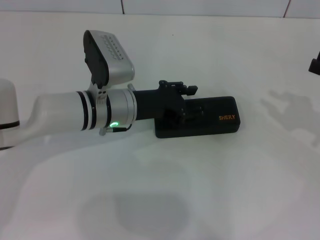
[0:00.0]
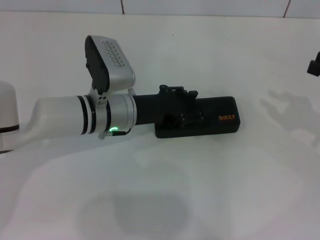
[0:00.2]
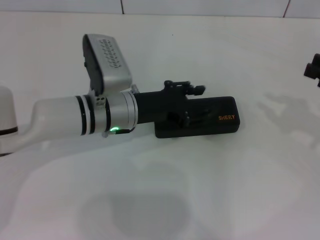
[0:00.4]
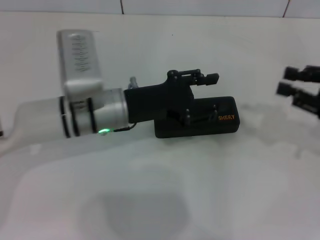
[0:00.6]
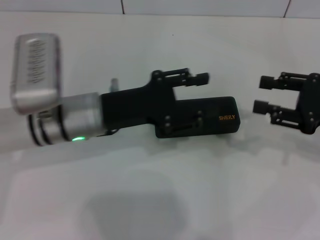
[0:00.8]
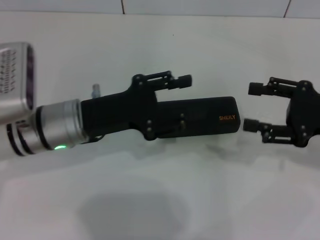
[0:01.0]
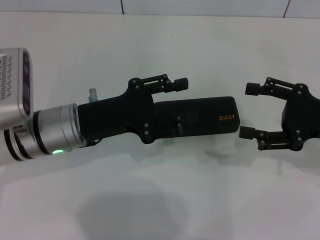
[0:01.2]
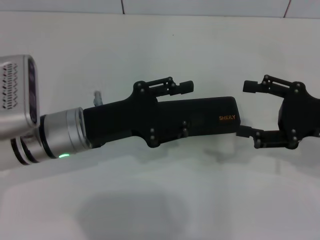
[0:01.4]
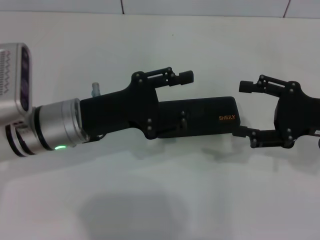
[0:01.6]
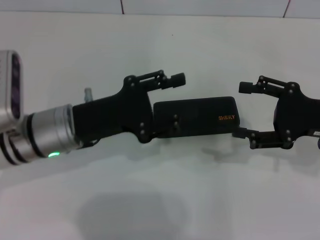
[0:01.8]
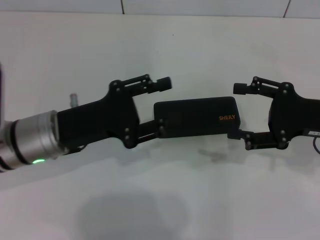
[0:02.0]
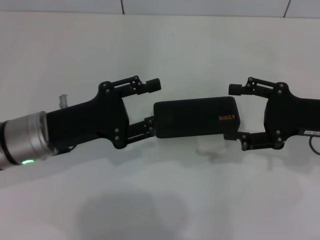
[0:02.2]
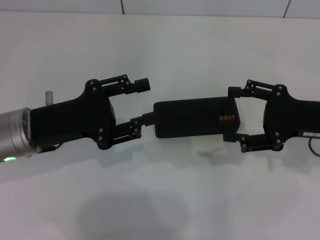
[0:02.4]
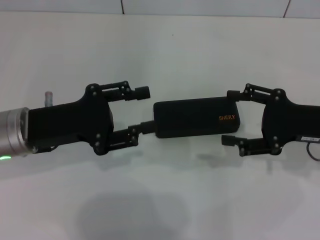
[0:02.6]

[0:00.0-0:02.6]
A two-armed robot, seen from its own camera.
0:00.0 to 0:01.2: The right gripper heads to the left, covering about 5 cm, and opens. The left gripper is displaced to the left and backward by some 10 cm.
0:01.2 to 0:02.6: The left gripper heads to the left, covering some 5 cm.

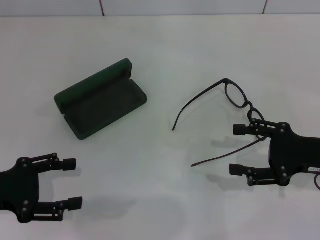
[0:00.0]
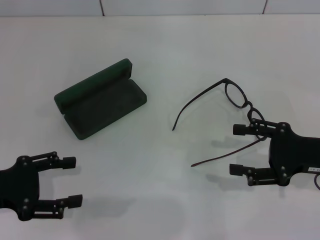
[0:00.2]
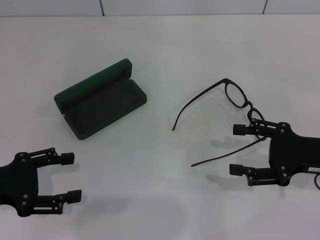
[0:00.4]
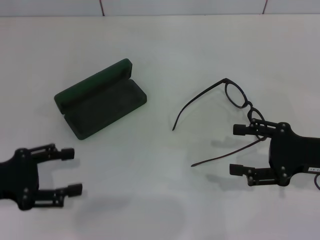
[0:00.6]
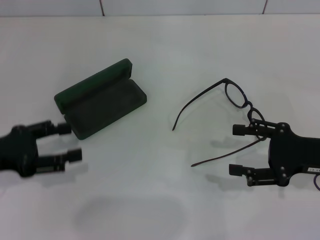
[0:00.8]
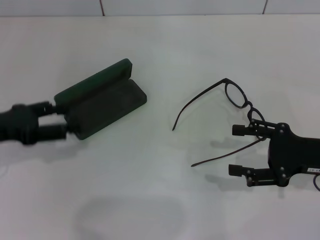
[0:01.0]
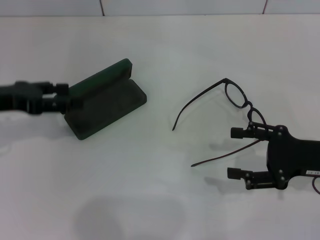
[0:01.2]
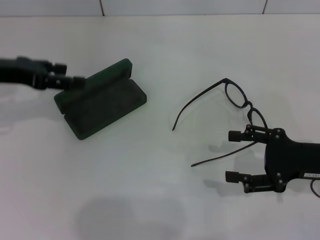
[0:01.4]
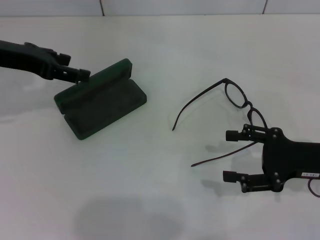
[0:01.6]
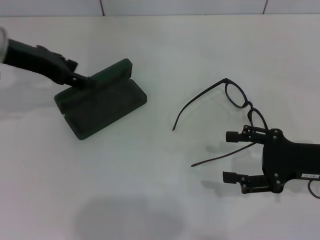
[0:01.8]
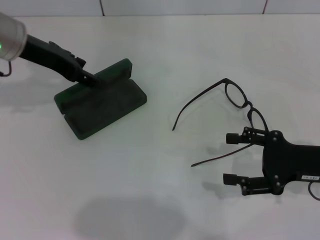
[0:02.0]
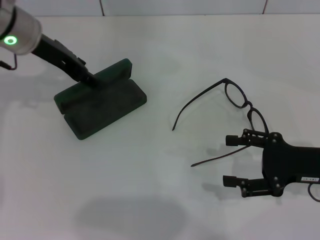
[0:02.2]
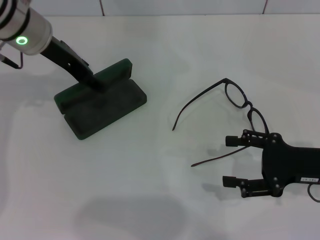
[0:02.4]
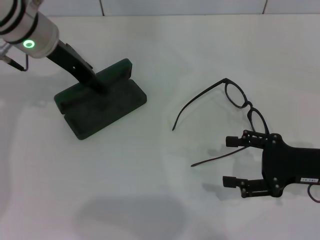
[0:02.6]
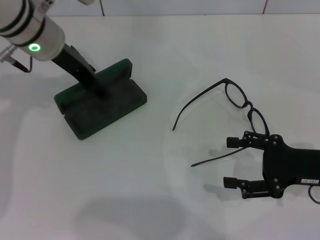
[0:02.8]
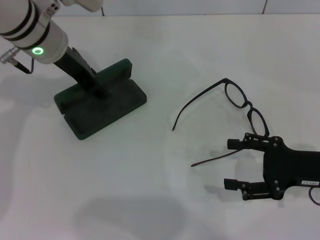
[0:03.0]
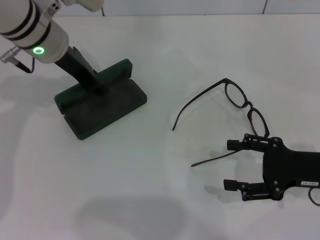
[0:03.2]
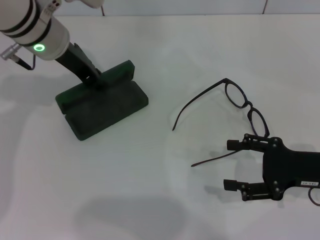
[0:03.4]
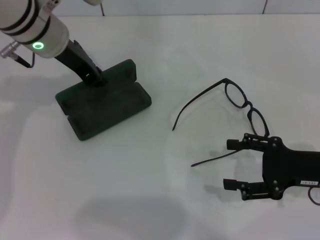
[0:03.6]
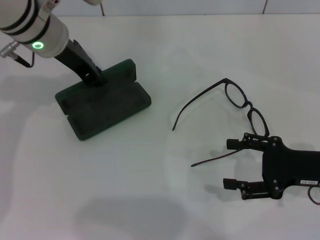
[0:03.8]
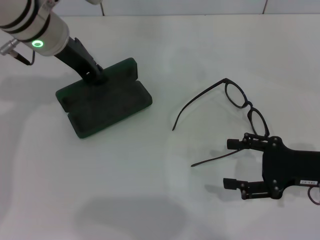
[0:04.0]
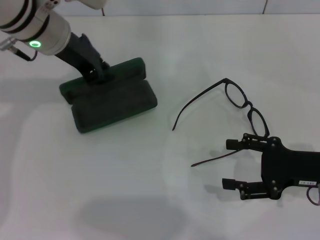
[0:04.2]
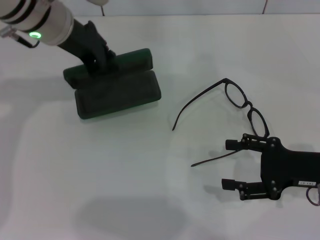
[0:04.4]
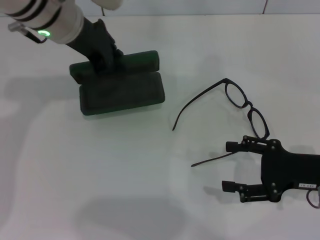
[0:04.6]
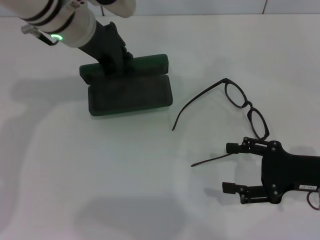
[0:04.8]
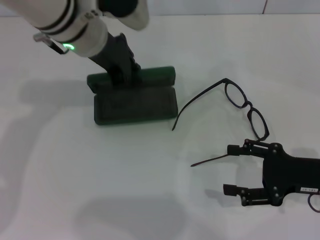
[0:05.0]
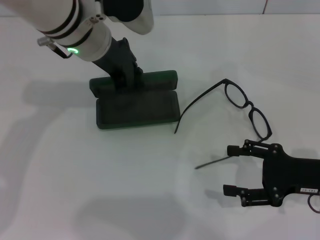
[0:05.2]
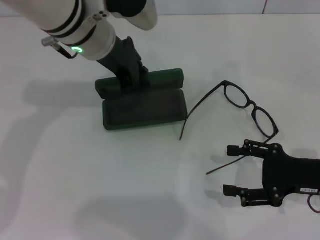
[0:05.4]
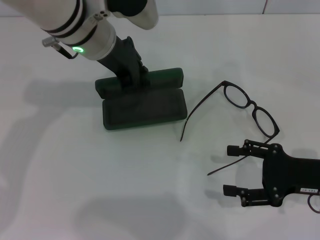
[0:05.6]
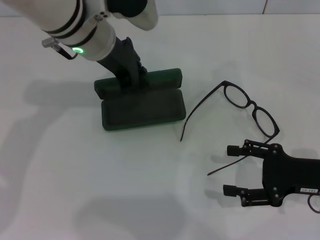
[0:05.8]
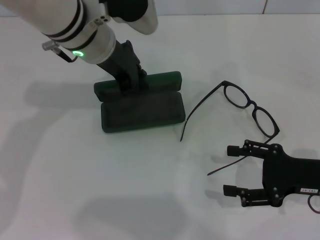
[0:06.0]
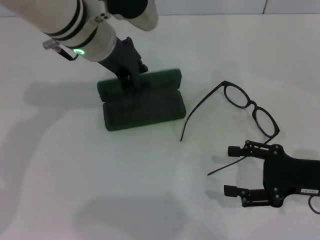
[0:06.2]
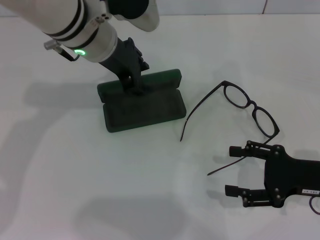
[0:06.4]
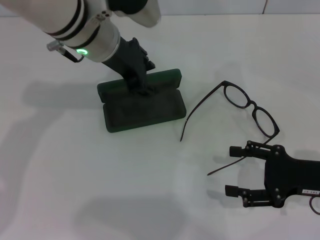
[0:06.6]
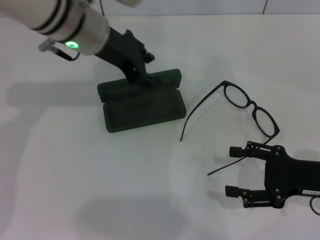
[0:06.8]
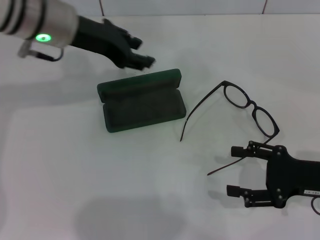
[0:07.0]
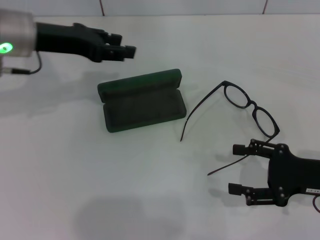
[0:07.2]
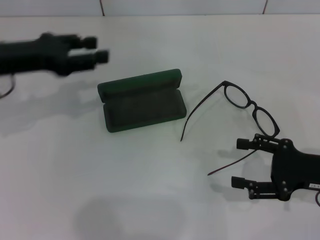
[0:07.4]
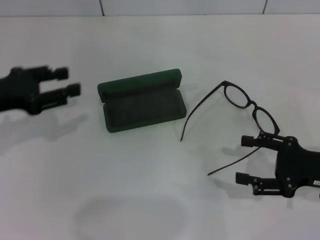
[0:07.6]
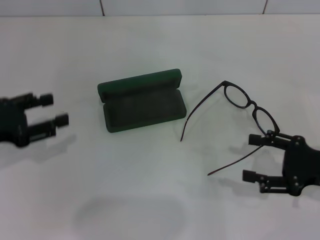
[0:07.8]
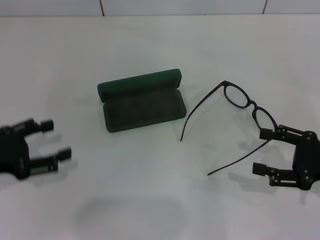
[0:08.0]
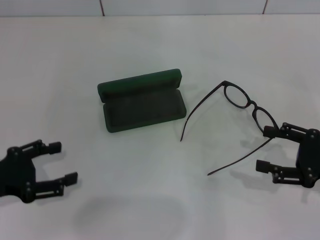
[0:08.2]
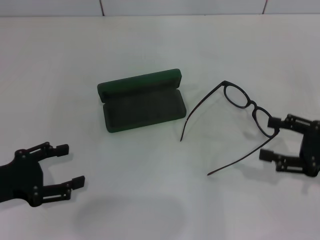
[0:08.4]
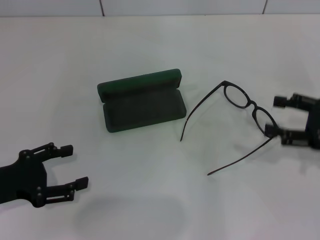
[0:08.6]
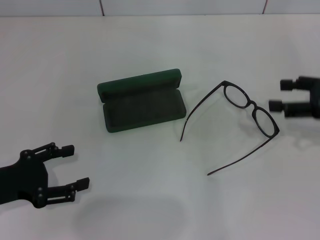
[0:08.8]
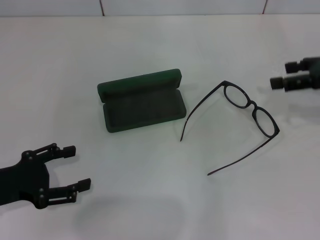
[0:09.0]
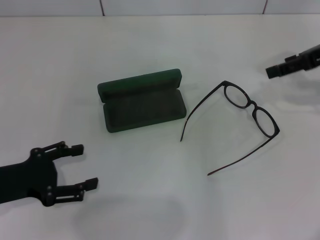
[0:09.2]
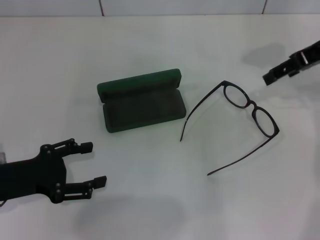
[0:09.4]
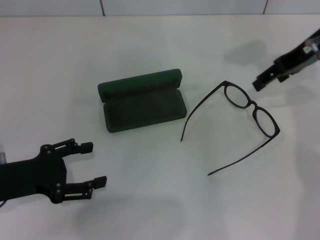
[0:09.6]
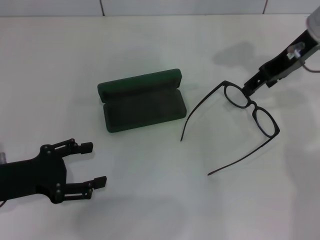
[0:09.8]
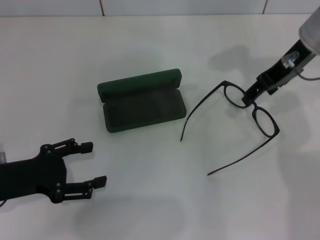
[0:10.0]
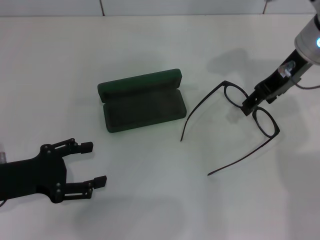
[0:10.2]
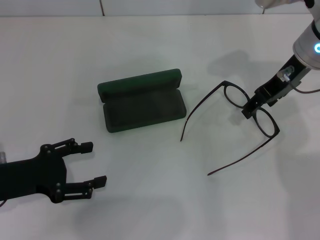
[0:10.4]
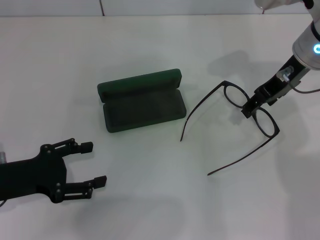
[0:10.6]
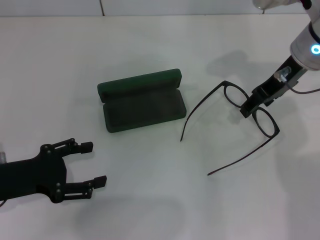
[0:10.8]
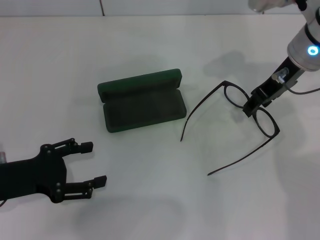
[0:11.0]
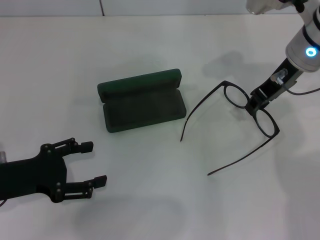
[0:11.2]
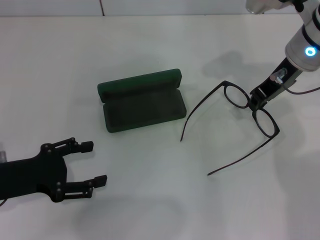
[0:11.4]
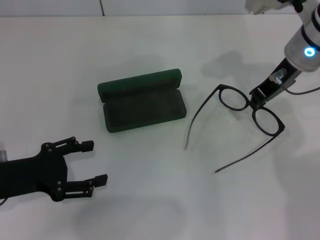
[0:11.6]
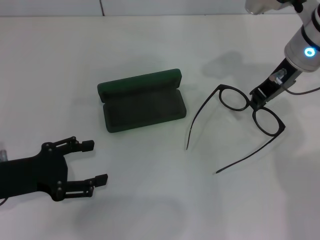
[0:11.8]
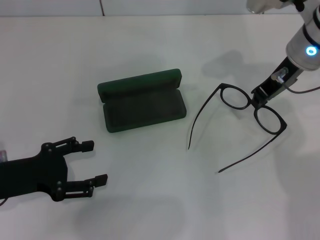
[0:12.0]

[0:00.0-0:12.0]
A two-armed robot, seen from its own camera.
Step, 0:00.0 to 0:03.6: Grab the glasses case with your left hand.
Step, 0:03.8 to 0:06.4: Place the glasses case in the center of the table with your left hand.
Step, 0:06.6 to 0:11.8: Grab the eyeglass frame with your right hand.
0:00.0 to 0:01.6: The left gripper shifts approximately 20 cm forward and upward.
0:01.6 to 0:03.0: The left gripper travels to the right by about 10 cm.
0:03.0 to 0:04.4: The left gripper closes.
0:04.4 to 0:06.0: The left gripper is displaced to the right by roughly 5 cm.
0:06.0 to 0:07.6: The left gripper shifts roughly 25 cm to the left and backward.
0:07.6 to 0:09.0: The left gripper goes some 10 cm backward and downward. Meanwhile the right gripper heads upward and forward, covering some 15 cm.
0:09.0 to 0:10.4: The right gripper is displaced to the left and forward by about 15 cm.
0:10.4 to 0:12.0: The right gripper closes its fingers.

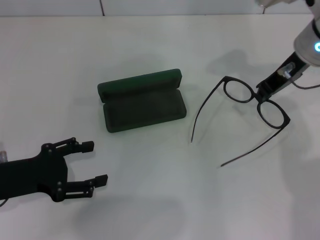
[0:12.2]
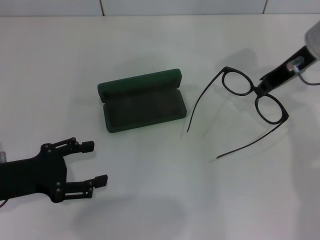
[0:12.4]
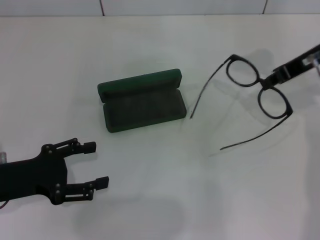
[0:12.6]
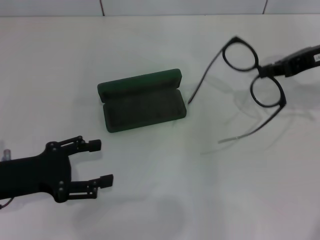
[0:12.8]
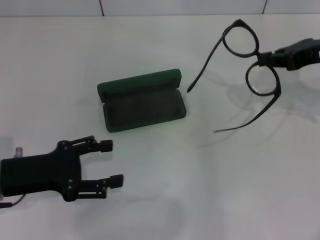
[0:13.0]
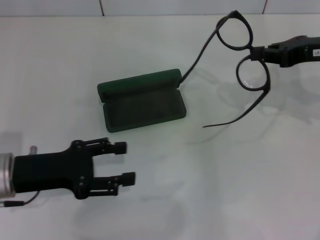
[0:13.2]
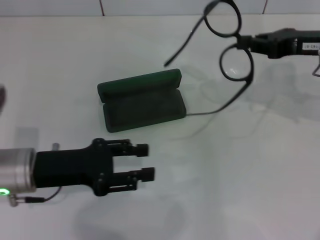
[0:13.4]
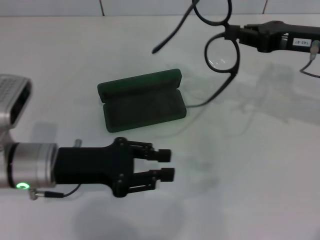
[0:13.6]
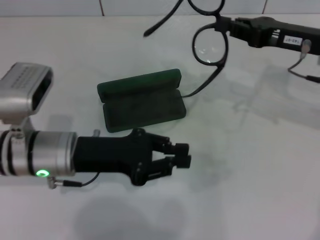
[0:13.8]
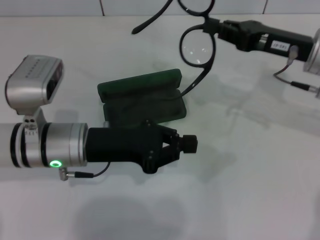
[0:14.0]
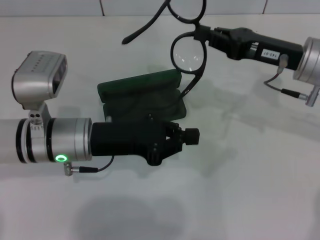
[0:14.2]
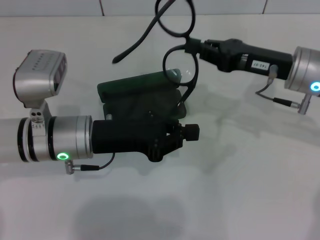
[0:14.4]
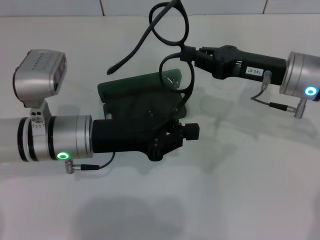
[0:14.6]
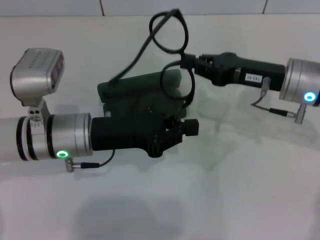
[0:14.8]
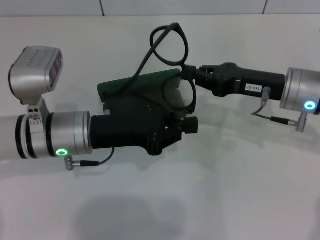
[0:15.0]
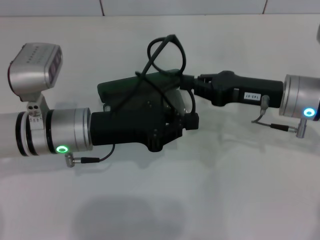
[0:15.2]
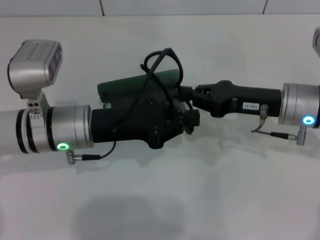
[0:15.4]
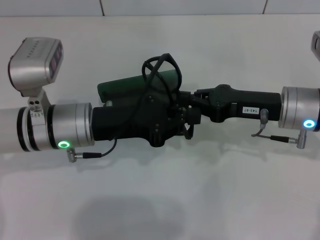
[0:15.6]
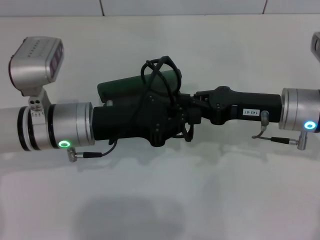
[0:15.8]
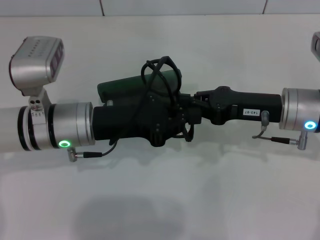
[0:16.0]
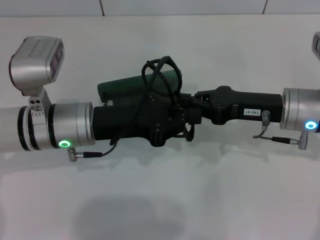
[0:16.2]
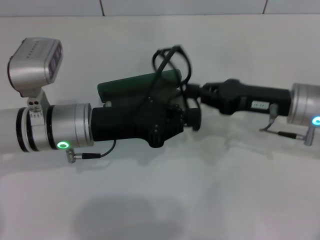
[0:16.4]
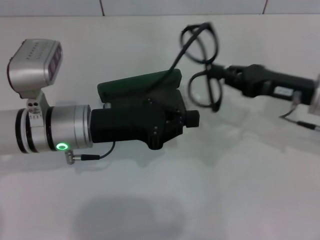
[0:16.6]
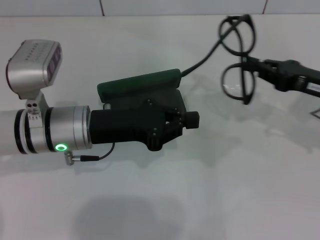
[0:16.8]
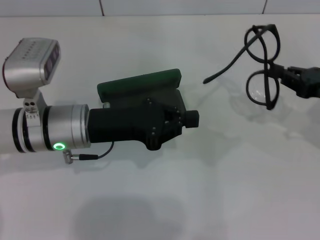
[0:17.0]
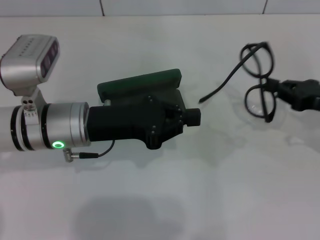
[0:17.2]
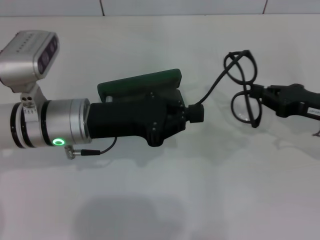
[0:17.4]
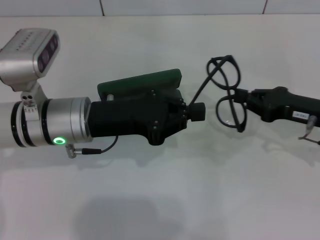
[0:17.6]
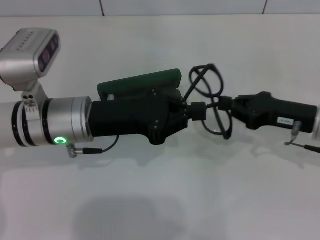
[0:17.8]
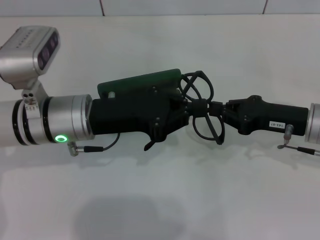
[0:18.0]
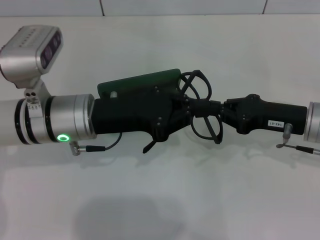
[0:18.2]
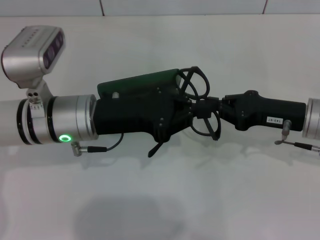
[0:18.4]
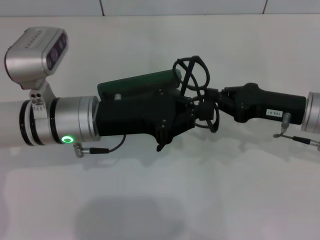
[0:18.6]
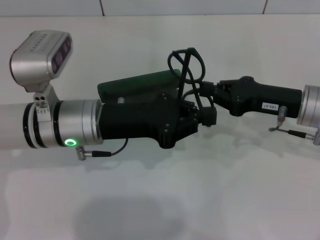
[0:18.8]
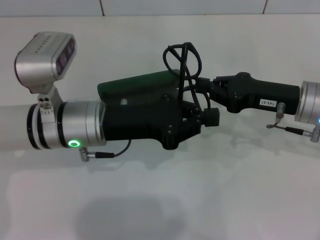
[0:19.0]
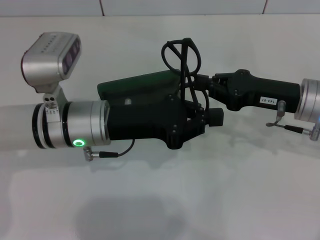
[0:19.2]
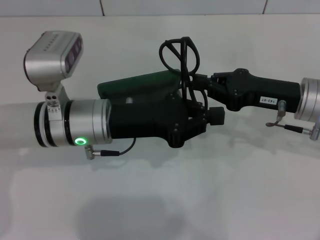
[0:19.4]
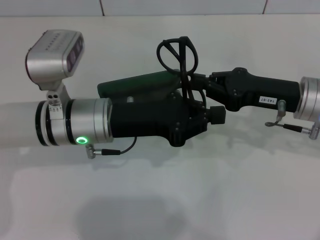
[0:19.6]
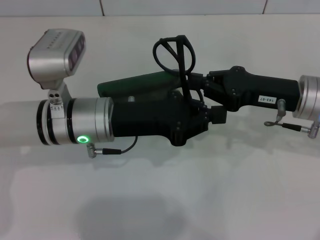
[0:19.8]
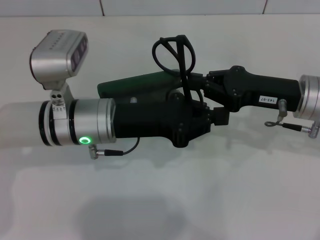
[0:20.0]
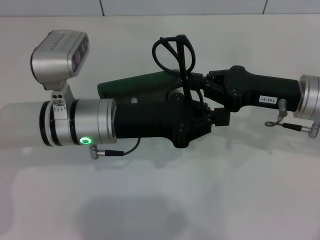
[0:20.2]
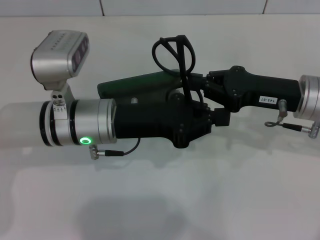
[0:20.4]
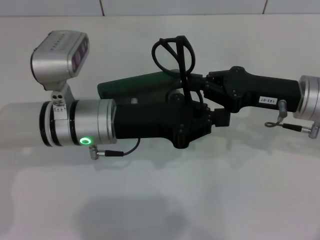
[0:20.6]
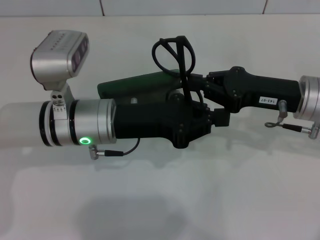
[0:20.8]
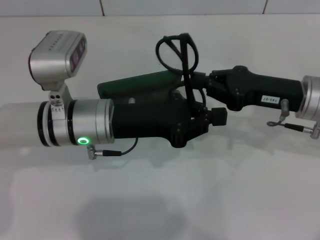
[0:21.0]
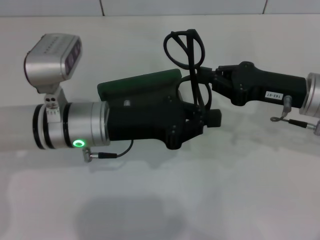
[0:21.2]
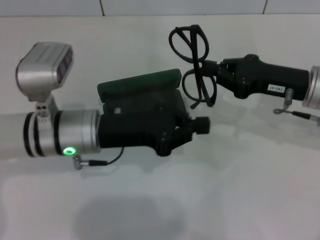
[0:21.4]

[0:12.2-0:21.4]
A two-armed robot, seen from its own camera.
Step, 0:12.2 to 0:20.6: Fold the frame with your left hand.
0:12.2 to 0:13.8: The right gripper shifts by roughly 5 cm. Meanwhile the left gripper shifts approximately 10 cm to the right and forward, and closes its fingers.
0:13.8 to 0:15.2: The right gripper travels downward by roughly 5 cm. Meanwhile the left gripper closes.
0:15.2 to 0:16.8: The right gripper shifts roughly 10 cm to the right.
0:16.8 to 0:18.4: The right gripper moves to the left, about 5 cm.
